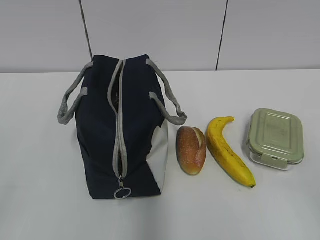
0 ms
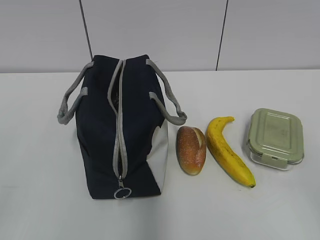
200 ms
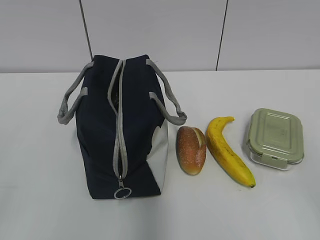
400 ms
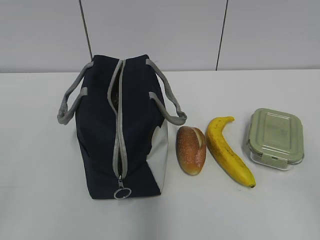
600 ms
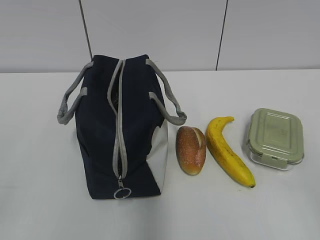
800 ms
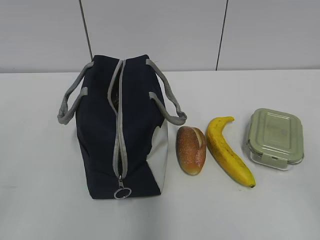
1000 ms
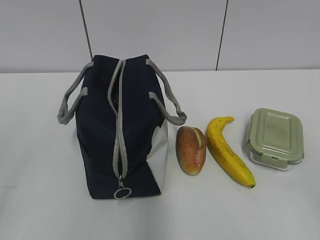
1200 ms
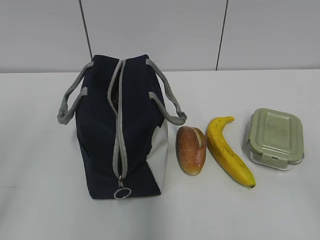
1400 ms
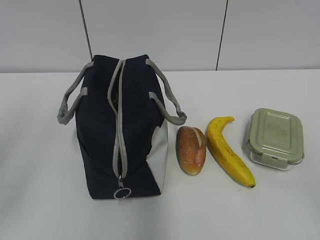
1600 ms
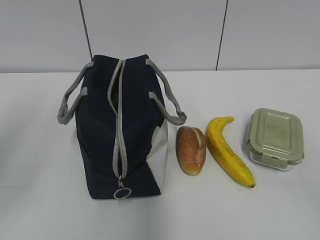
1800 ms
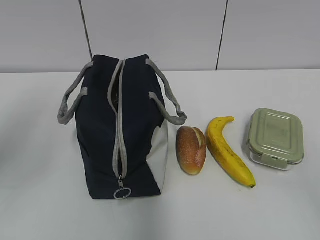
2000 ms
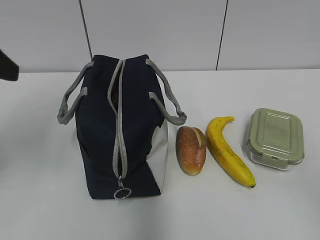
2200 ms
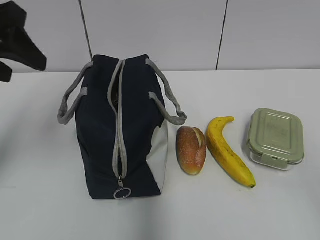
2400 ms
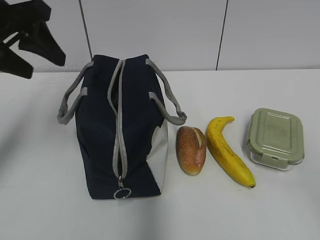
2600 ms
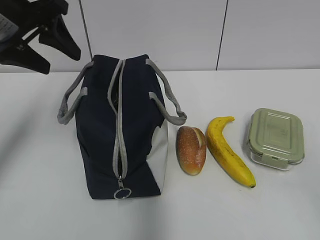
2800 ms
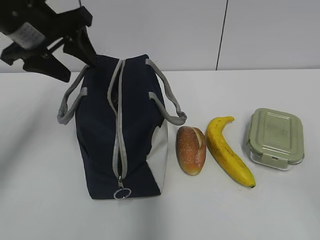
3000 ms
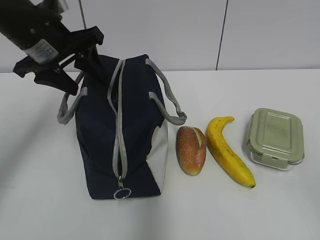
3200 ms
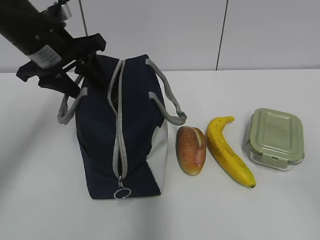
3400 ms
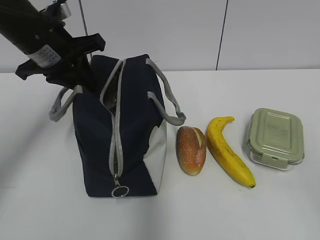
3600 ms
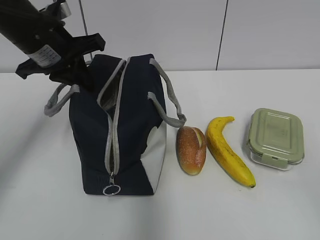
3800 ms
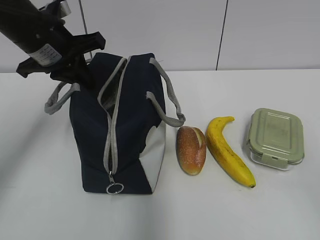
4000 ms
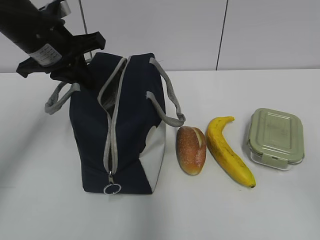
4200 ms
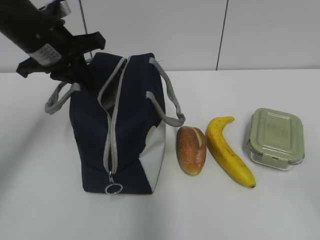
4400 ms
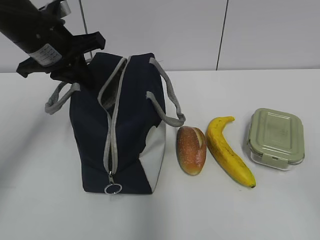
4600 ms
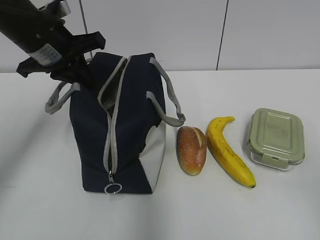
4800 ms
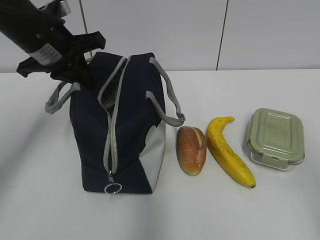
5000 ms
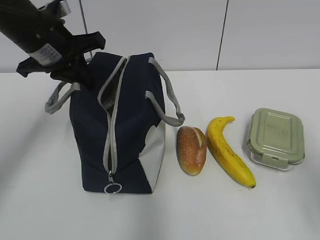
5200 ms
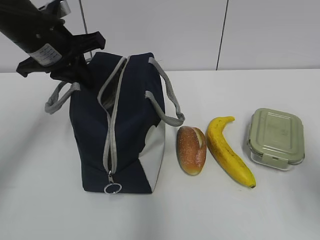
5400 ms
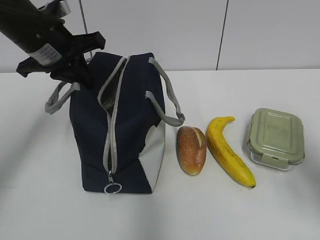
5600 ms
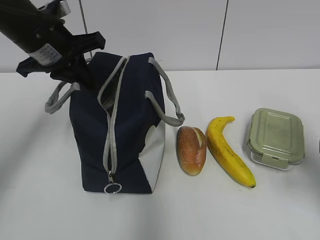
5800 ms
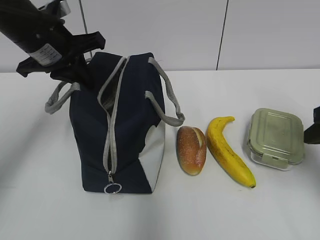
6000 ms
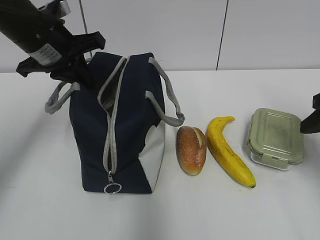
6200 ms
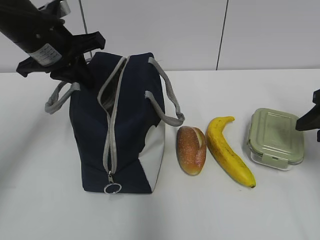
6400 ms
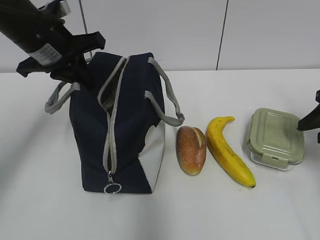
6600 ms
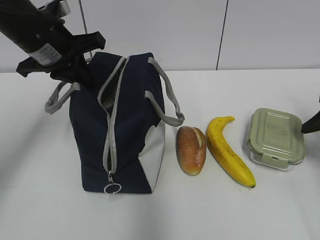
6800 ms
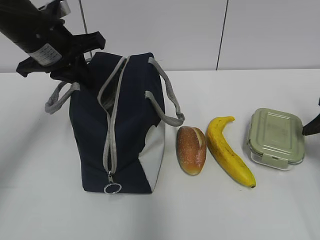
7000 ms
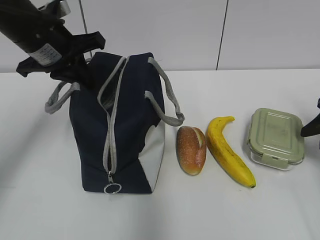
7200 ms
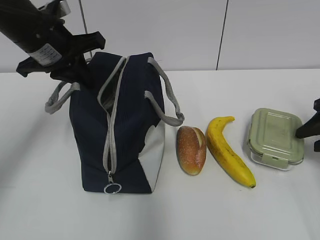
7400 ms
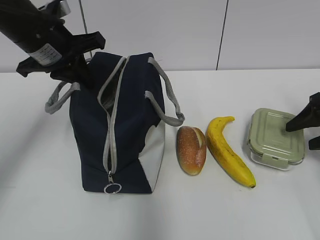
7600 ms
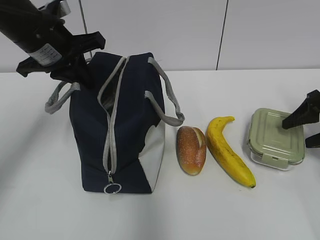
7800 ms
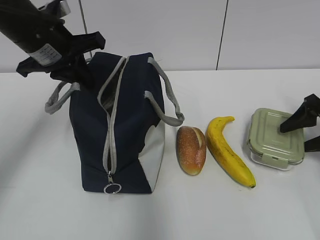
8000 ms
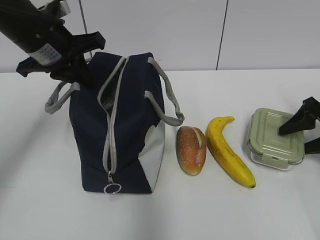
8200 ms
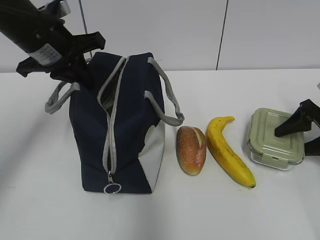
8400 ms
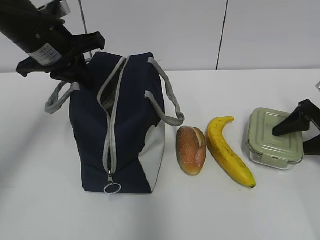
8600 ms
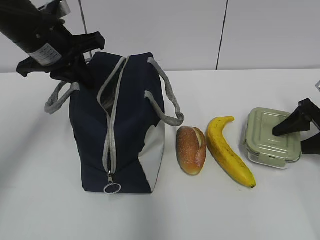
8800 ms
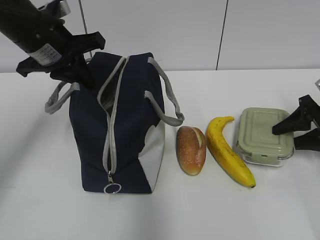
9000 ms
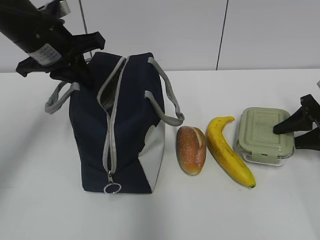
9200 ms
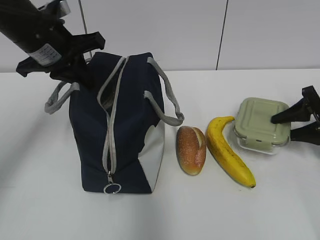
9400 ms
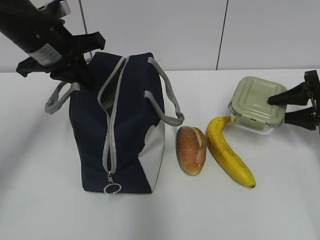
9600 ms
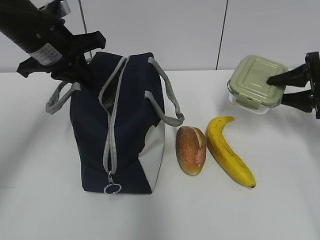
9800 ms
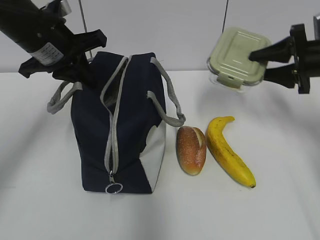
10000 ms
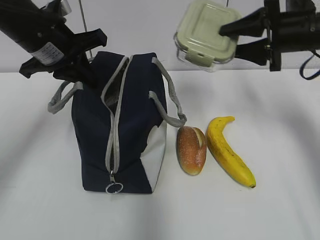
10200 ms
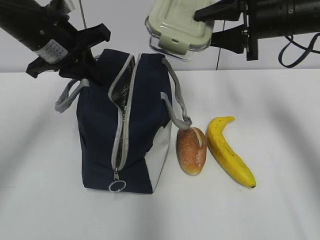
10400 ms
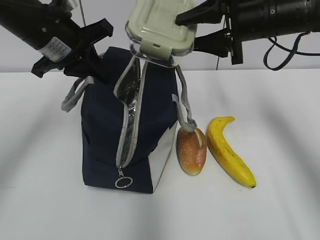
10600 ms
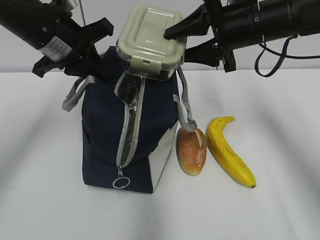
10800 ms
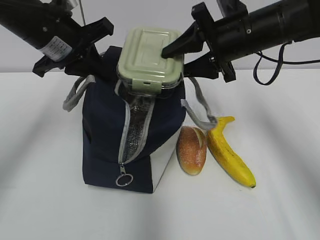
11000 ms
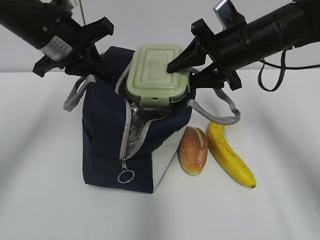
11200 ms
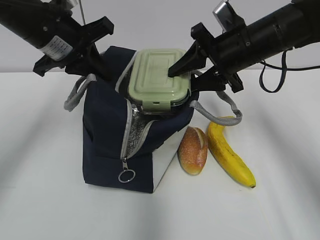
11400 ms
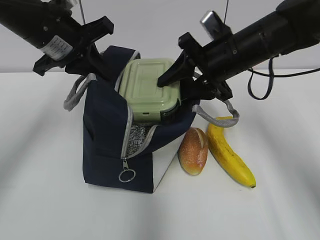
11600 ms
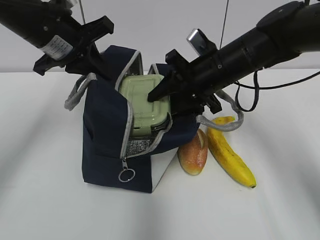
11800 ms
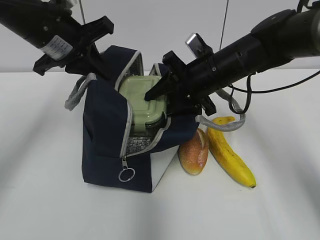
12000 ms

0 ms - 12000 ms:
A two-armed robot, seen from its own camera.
Step, 0 ms - 8800 ms: Grab the lunch box with your right hand.
1600 ms - 3000 ms: The left gripper shifts about 25 cm forward and to the right.
3000 ms - 4400 ms: The left gripper closes up.
4400 ms - 6000 ms: The right gripper goes about 25 cm forward.
6000 ms - 7600 ms: The right gripper goes approximately 15 cm forward, to the right and downward.
7600 ms - 9000 ms: The grippers stay close to where they were, moving slightly.
9000 ms - 10400 ms: The right gripper travels upward and to the left by roughly 25 cm.
10400 ms - 12000 ms: The right gripper shifts about 15 cm to the left and downward.

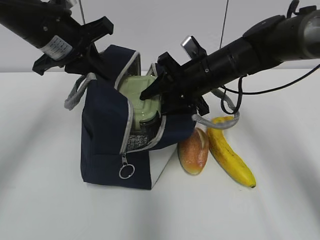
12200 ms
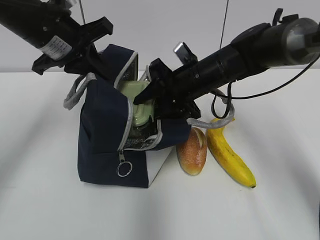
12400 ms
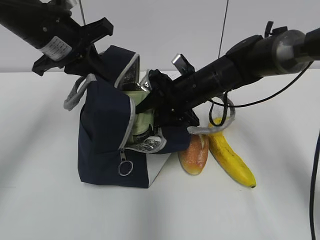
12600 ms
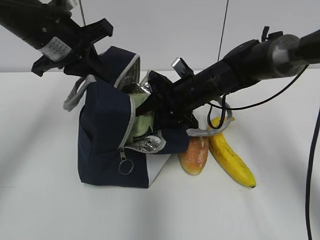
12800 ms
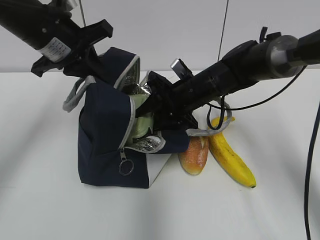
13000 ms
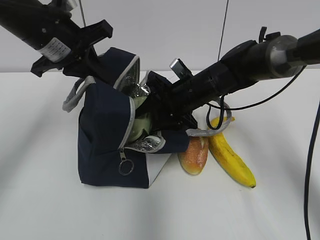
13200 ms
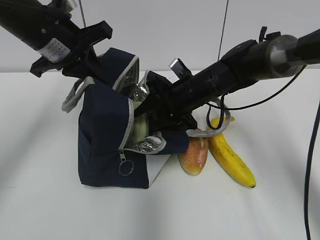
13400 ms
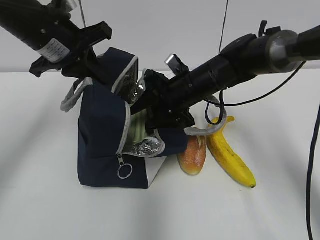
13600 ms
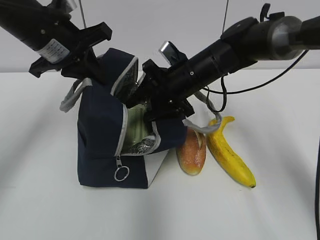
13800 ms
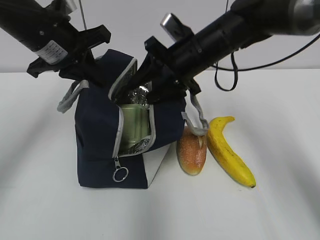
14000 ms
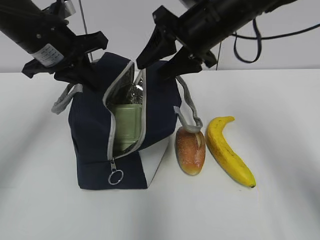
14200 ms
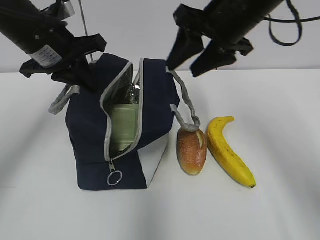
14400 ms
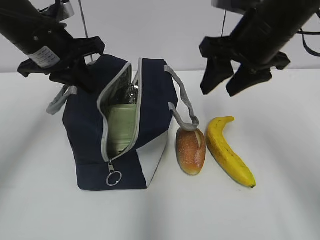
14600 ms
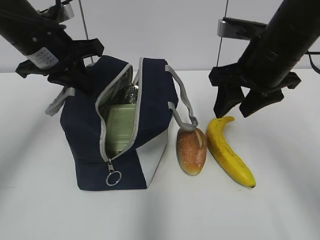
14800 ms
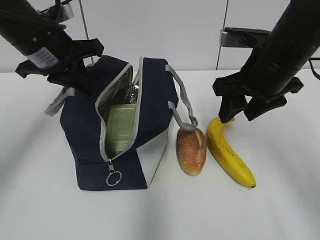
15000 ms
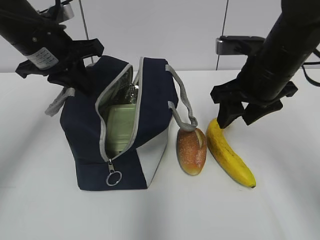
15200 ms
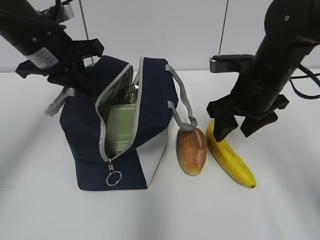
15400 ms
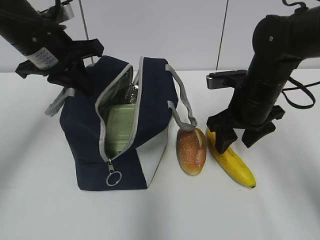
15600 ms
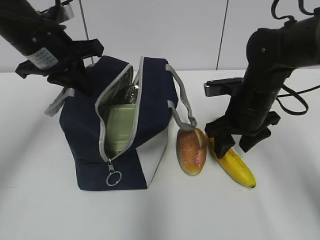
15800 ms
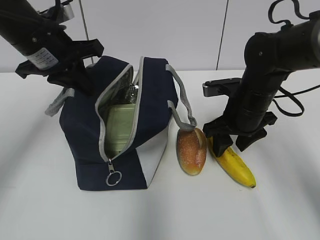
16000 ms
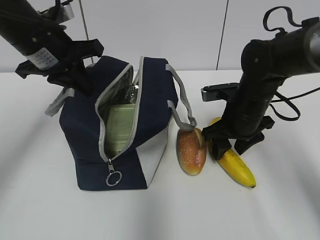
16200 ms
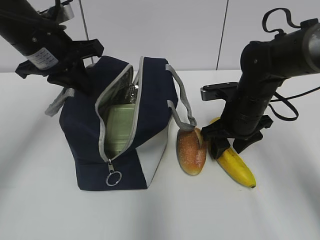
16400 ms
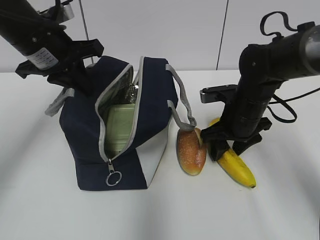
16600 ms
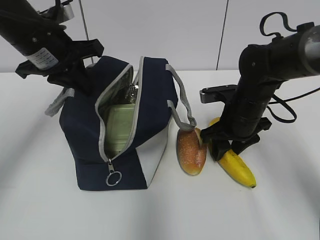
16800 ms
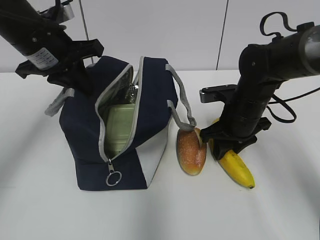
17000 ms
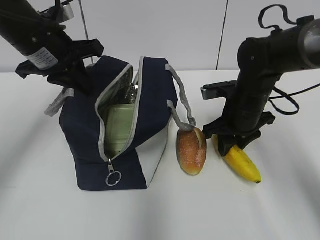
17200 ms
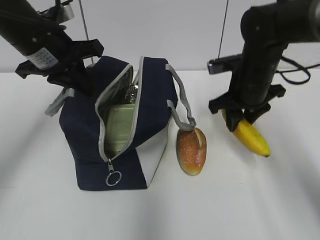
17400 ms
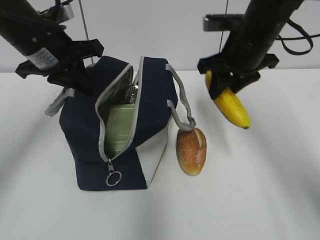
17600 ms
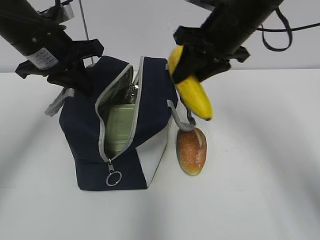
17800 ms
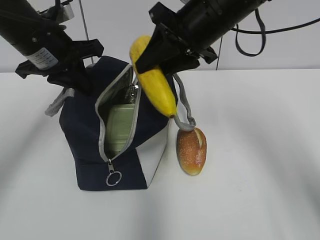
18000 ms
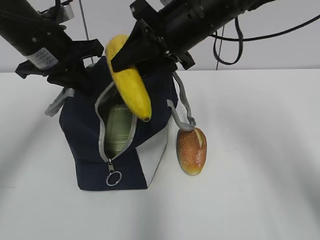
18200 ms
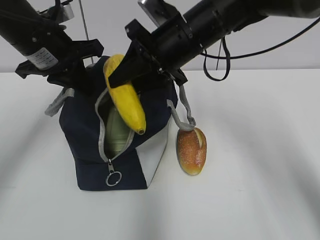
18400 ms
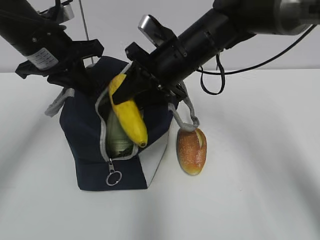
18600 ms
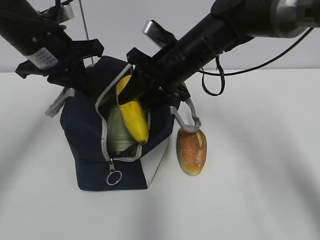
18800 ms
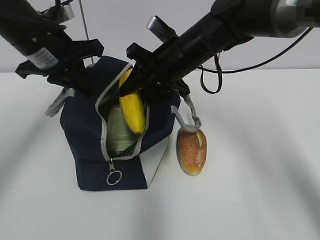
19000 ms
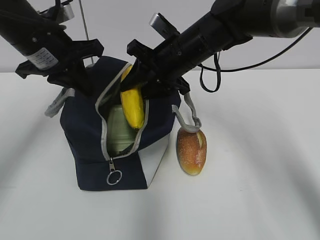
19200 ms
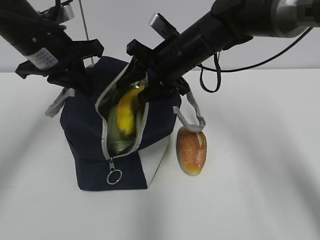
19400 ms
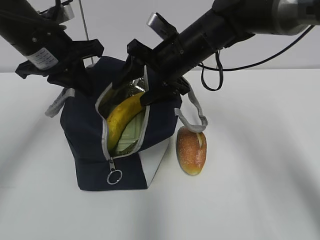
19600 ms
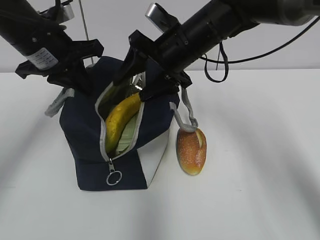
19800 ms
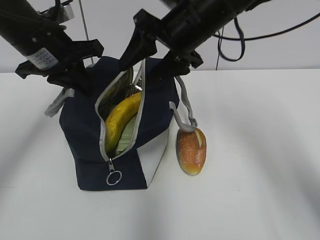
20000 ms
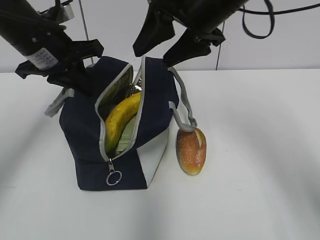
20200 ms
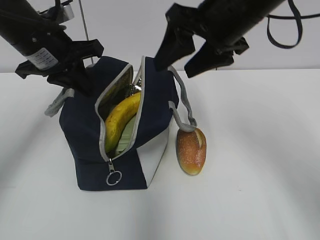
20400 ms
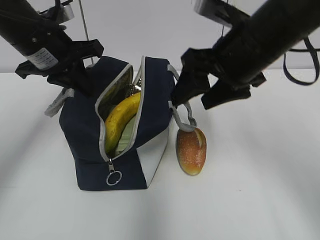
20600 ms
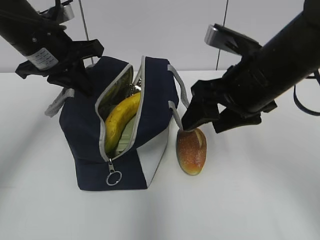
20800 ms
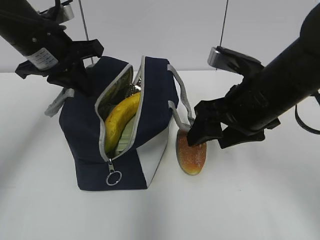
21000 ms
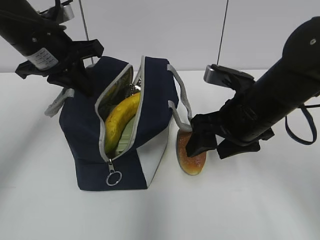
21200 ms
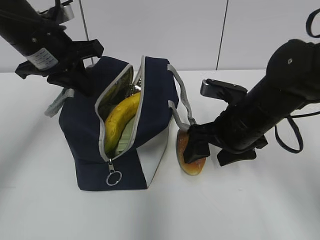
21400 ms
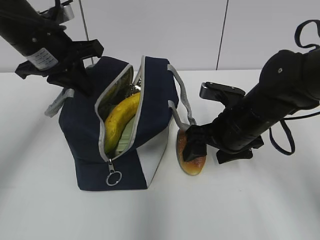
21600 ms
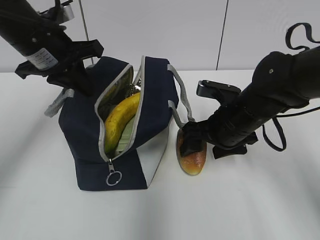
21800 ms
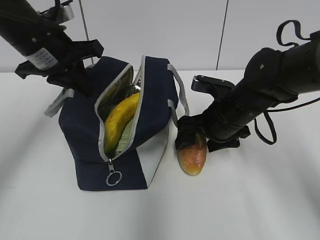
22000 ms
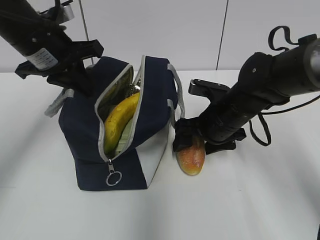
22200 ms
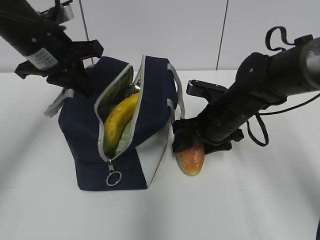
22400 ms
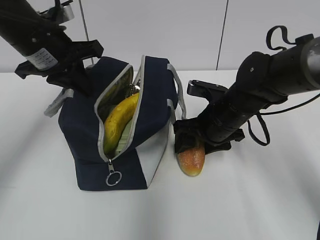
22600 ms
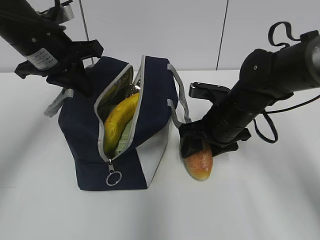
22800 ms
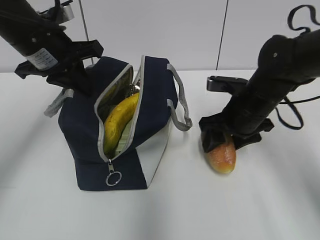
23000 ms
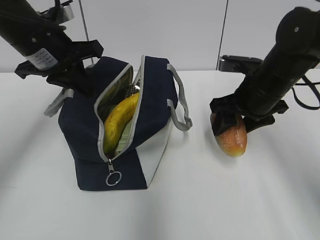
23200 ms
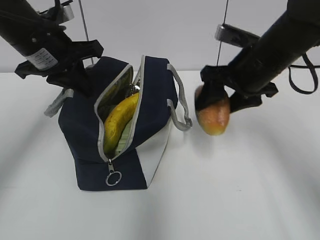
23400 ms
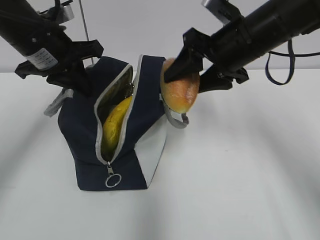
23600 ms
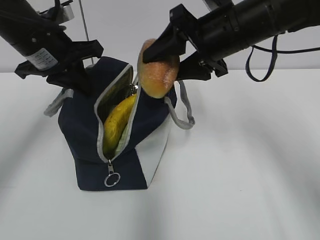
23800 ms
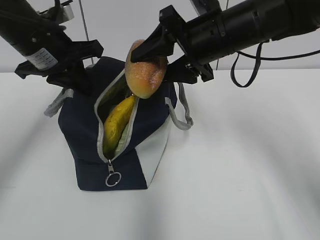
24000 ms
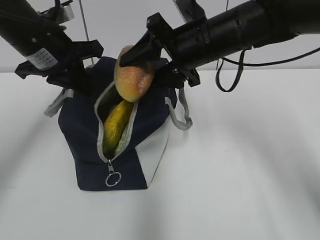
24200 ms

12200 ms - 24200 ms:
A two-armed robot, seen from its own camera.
Step, 12200 ms - 13800 ms: Place it into the bag with your right hand.
Step, 14000 ms - 17000 ms: Grab the banana with your right hand.
Step, 17200 ms - 19400 ms: Place it into the bag with your right hand.
Step, 19800 ms - 22600 ms: Grab the bread with your right hand.
12200 ms - 13800 ms: The grippers move only a little.
13800 ms - 15200 ms: The right gripper moves to the right, backward and upward, approximately 15 cm.
15200 ms - 16600 ms: The right gripper moves downward, approximately 10 cm.
16600 ms - 18200 ms: The right gripper heads upward and to the left, covering some 20 cm.
18200 ms - 19800 ms: The right gripper shifts some 5 cm downward, and opens up.
19800 ms - 21200 ms: The right gripper travels backward and to the right by about 15 cm.
21200 ms - 22600 ms: The right gripper goes about 10 cm downward and forward.
22600 ms - 24200 ms: The right gripper moves upward, approximately 15 cm.
